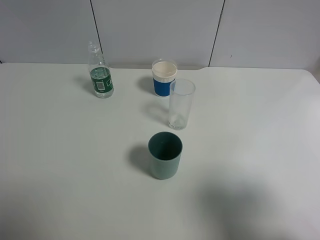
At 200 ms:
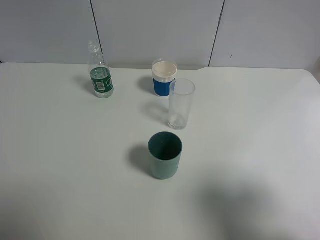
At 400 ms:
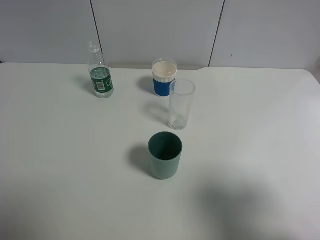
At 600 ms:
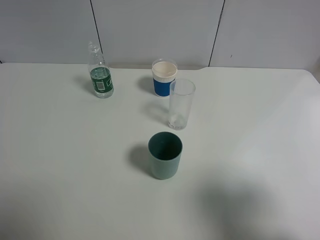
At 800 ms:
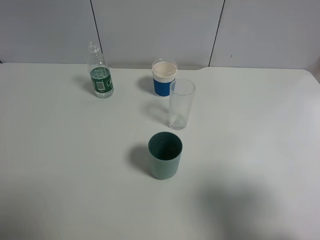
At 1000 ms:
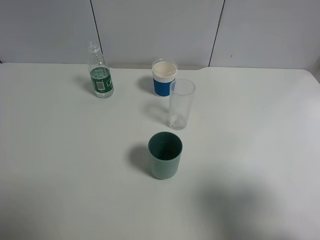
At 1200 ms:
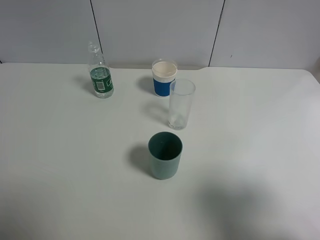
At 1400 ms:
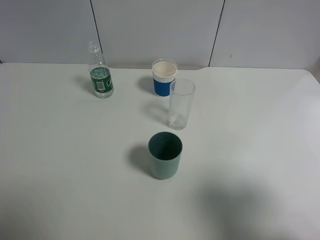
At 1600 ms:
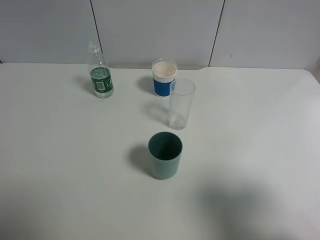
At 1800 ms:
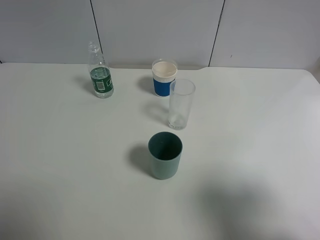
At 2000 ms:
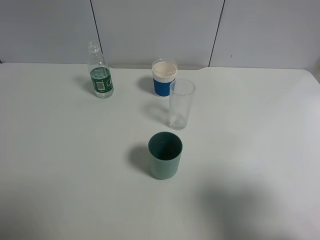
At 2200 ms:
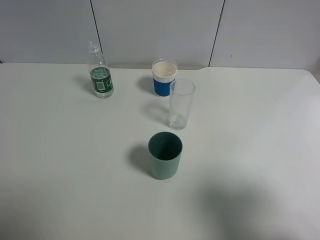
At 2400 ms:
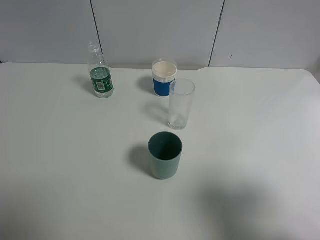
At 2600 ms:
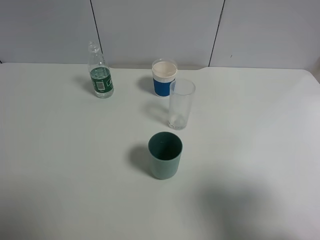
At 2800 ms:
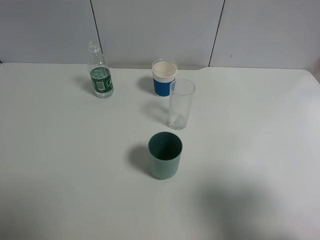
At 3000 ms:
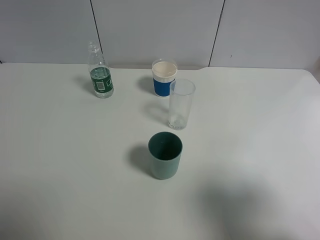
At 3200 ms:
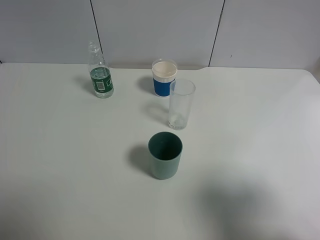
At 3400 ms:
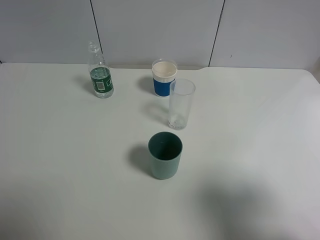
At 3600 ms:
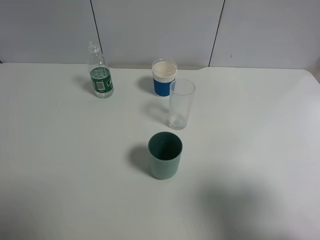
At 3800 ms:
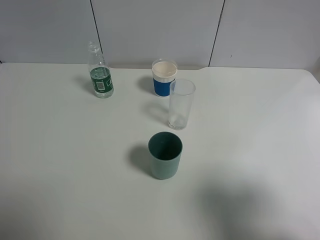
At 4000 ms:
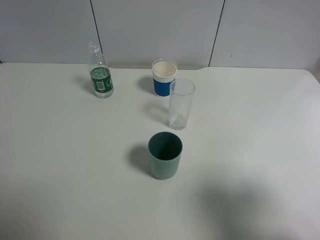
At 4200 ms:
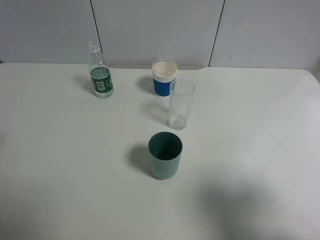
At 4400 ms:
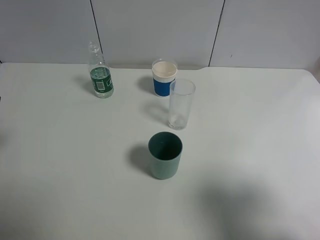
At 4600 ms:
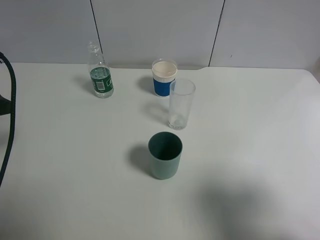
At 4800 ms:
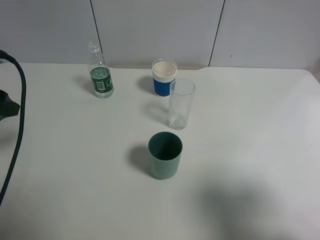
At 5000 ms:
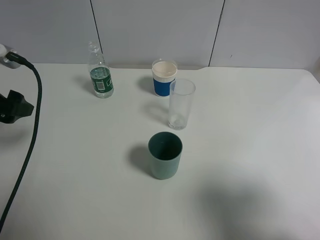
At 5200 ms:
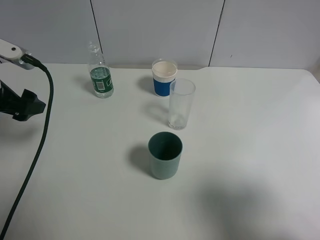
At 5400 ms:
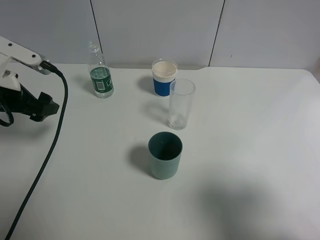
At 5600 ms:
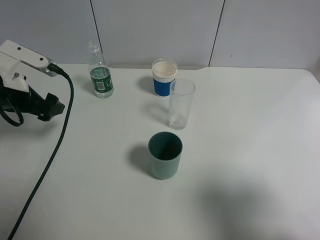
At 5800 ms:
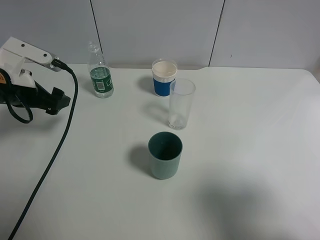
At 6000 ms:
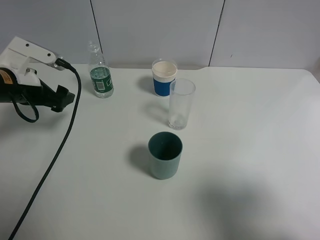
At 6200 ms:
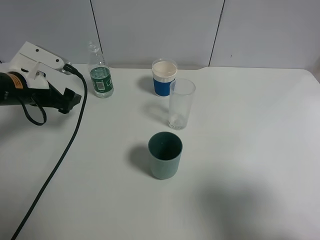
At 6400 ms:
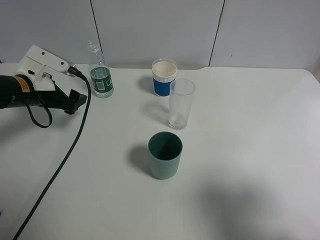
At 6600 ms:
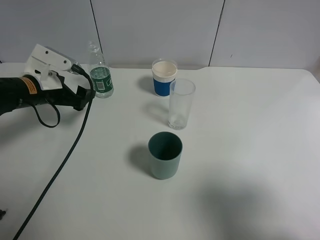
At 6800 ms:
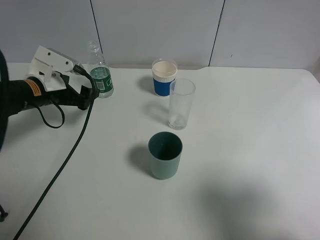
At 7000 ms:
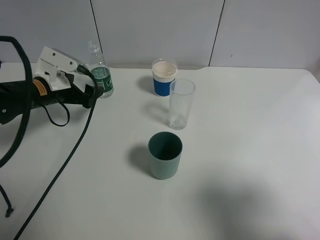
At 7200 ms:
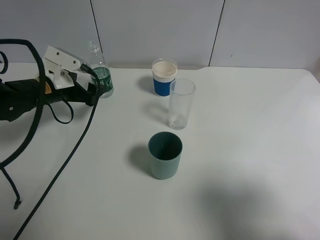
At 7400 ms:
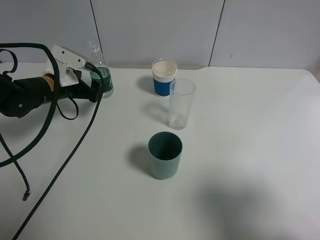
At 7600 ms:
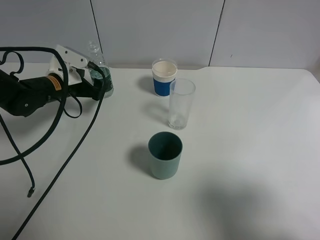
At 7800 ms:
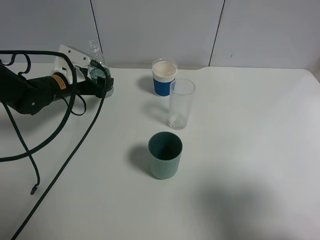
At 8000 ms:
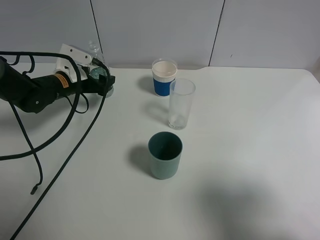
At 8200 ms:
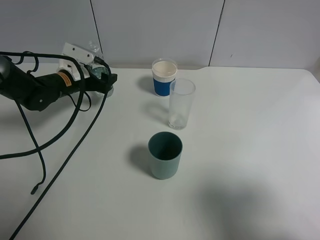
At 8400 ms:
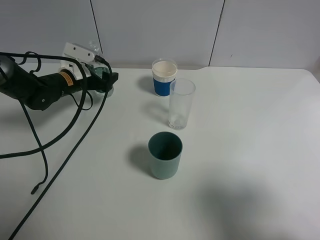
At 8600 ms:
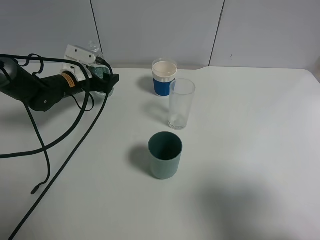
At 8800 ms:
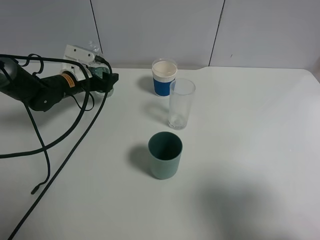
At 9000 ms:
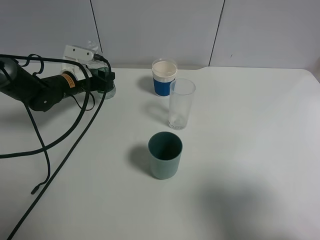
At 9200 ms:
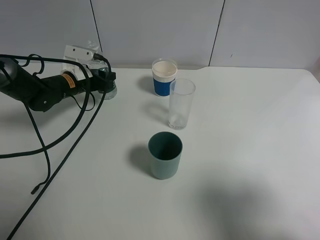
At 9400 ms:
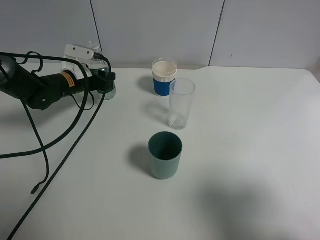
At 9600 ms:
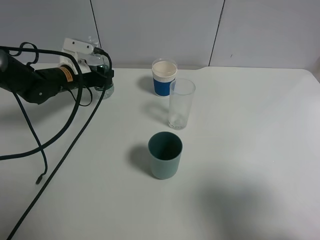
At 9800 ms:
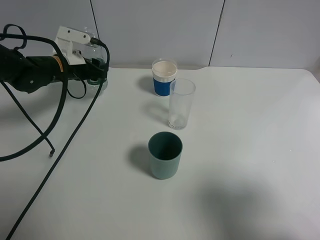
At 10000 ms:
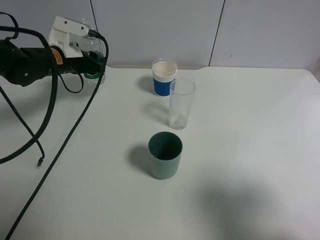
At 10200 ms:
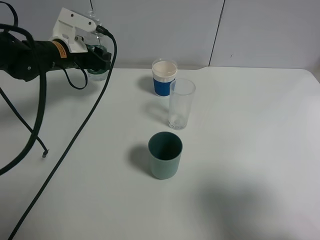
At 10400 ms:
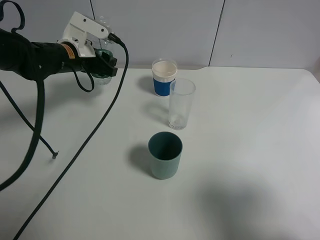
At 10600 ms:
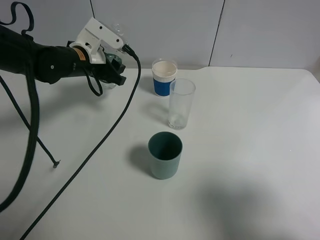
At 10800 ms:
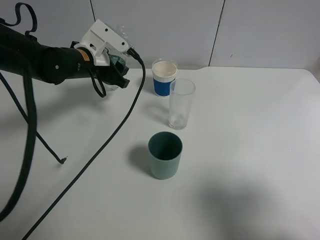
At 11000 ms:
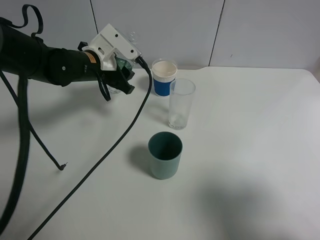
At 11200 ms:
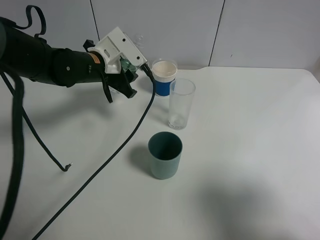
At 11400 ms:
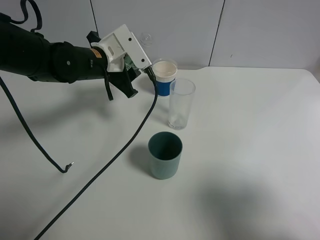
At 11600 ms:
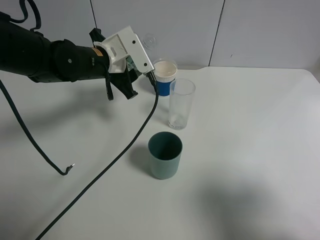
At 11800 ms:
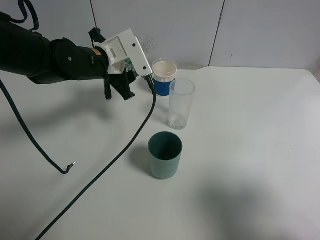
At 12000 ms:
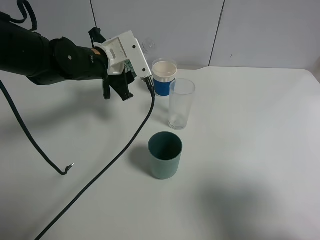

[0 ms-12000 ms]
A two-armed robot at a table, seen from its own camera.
Task of the whole recording: use a gripper to hold the bottle of the drink and pour it into a random cup.
Step, 0 ms to 9000 ms: Grasp the mineral water bottle with the left gripper.
0 ms to 3000 ms: Both grippers stay put.
4400 ms to 6000 ms: The left gripper travels forward and downward by approximately 15 cm.
6000 ms to 7600 ms: The left gripper is displaced forward and downward by about 10 cm.
7600 ms to 9000 ms: The left gripper closes up.
9000 ms to 10400 ms: The left gripper heads upward, covering approximately 10 cm.
10400 ms to 12000 ms: The left gripper is displaced to the right by roughly 5 cm.

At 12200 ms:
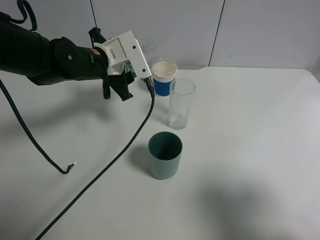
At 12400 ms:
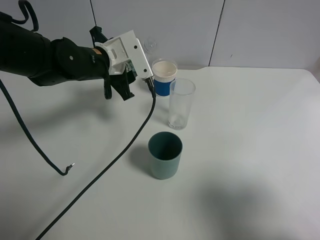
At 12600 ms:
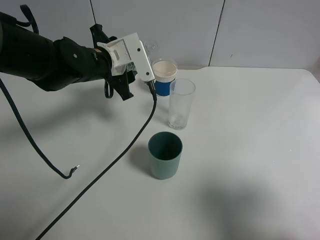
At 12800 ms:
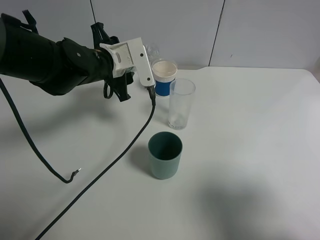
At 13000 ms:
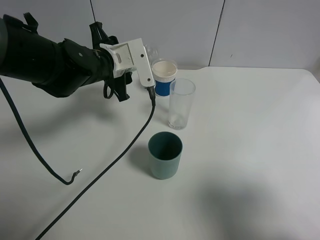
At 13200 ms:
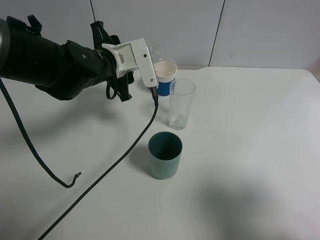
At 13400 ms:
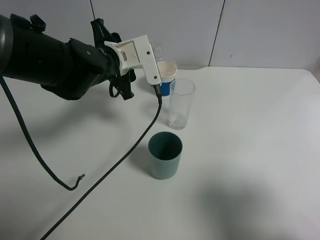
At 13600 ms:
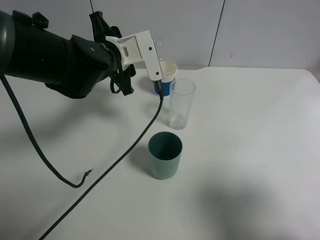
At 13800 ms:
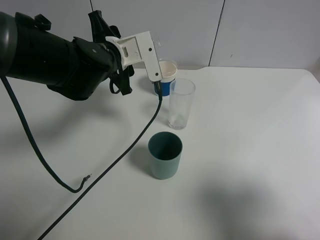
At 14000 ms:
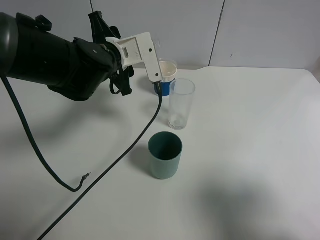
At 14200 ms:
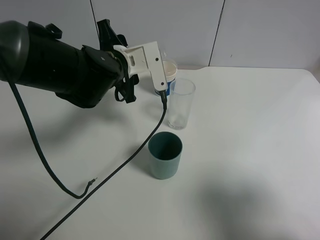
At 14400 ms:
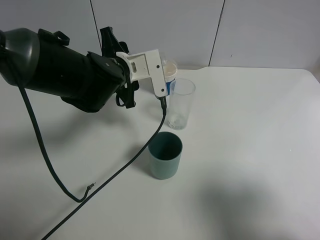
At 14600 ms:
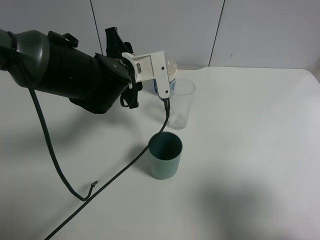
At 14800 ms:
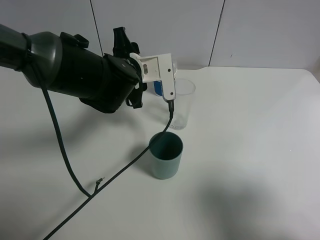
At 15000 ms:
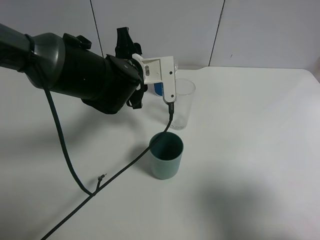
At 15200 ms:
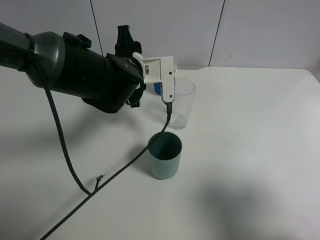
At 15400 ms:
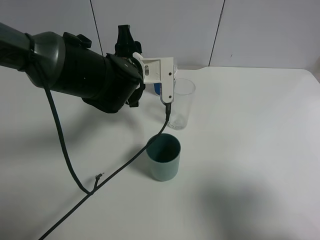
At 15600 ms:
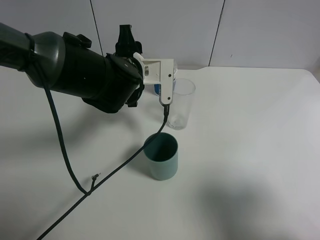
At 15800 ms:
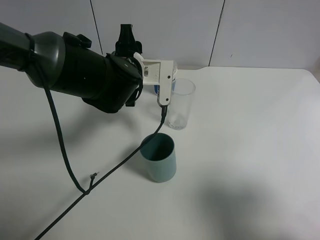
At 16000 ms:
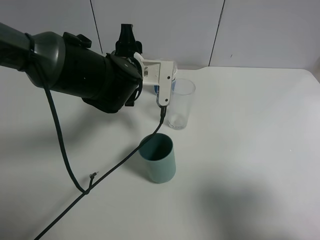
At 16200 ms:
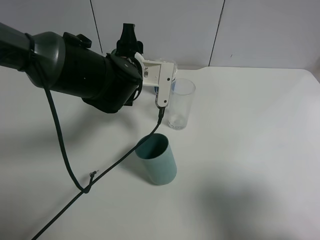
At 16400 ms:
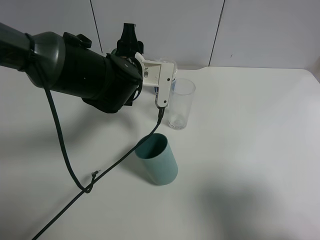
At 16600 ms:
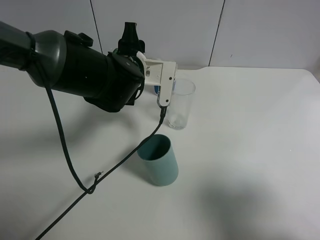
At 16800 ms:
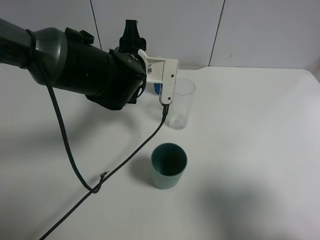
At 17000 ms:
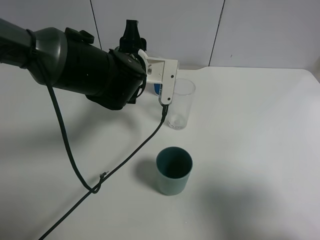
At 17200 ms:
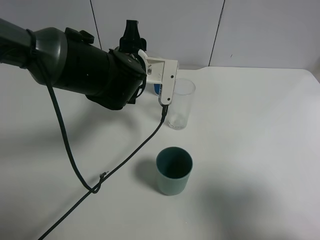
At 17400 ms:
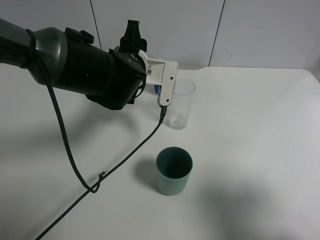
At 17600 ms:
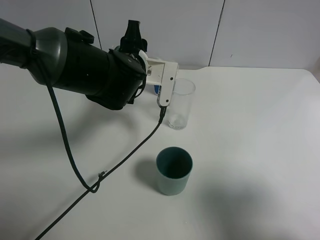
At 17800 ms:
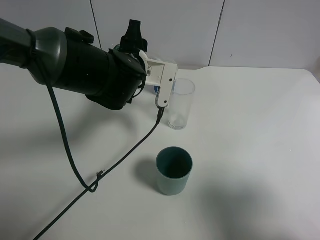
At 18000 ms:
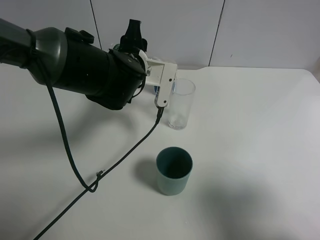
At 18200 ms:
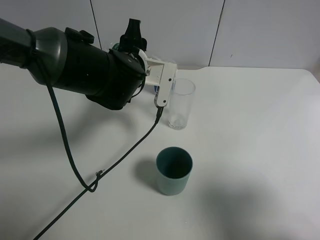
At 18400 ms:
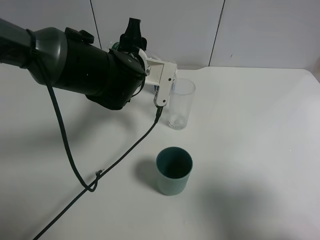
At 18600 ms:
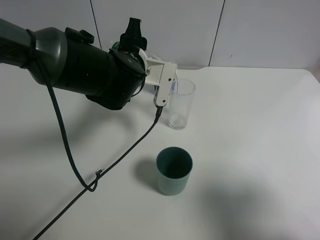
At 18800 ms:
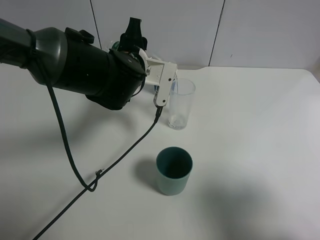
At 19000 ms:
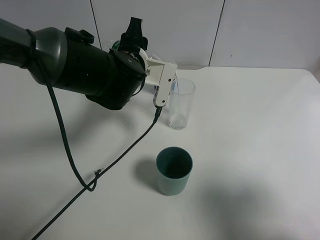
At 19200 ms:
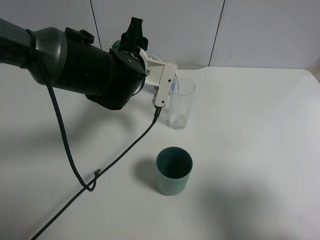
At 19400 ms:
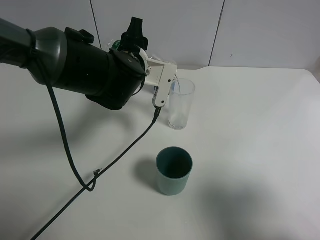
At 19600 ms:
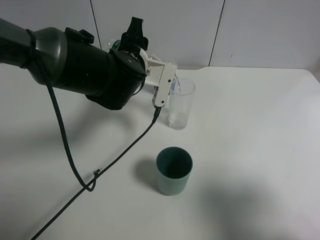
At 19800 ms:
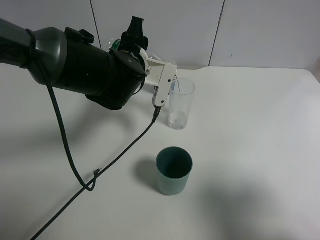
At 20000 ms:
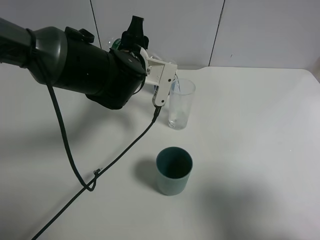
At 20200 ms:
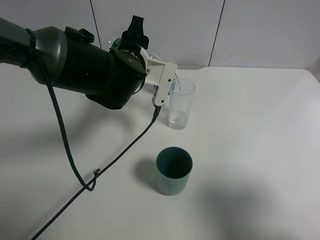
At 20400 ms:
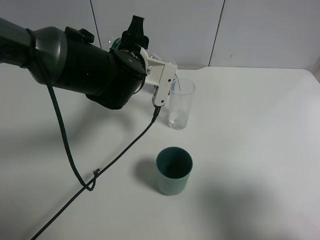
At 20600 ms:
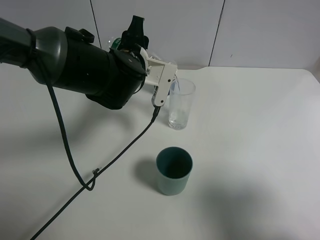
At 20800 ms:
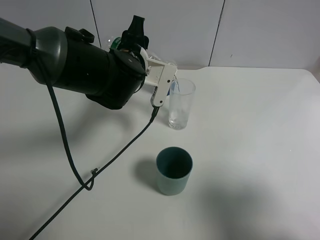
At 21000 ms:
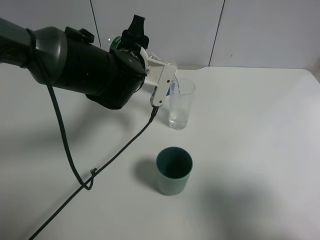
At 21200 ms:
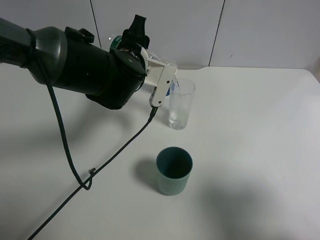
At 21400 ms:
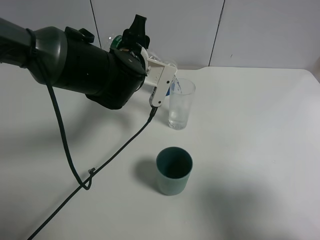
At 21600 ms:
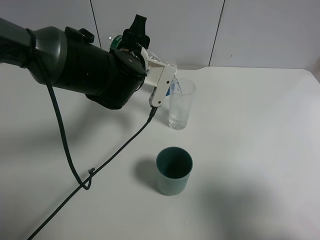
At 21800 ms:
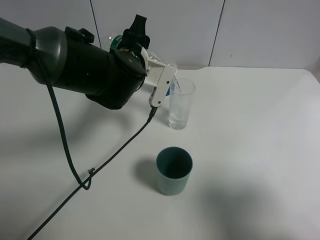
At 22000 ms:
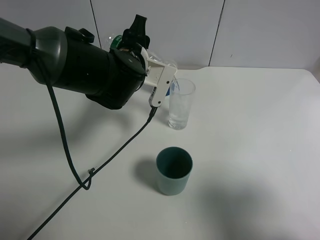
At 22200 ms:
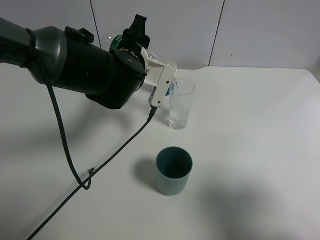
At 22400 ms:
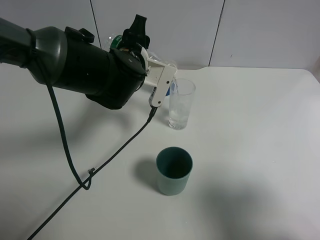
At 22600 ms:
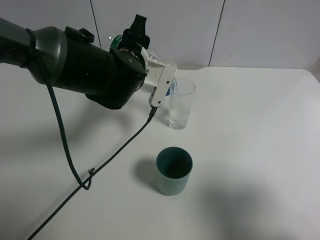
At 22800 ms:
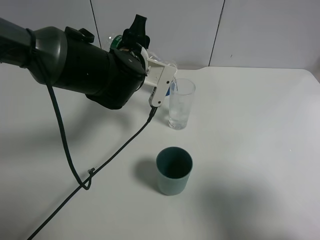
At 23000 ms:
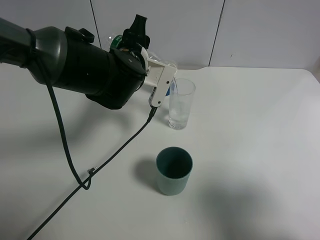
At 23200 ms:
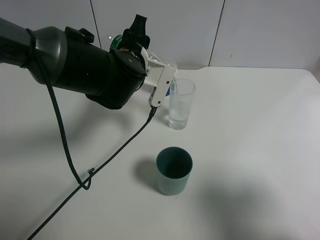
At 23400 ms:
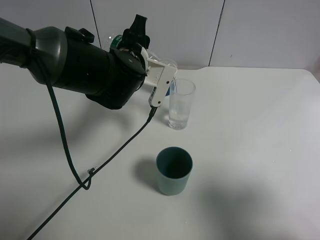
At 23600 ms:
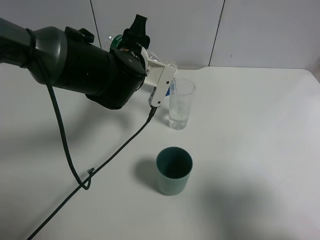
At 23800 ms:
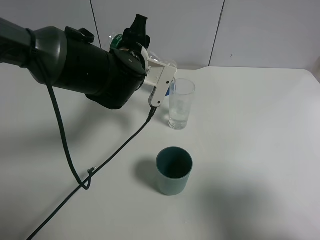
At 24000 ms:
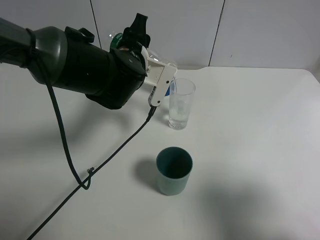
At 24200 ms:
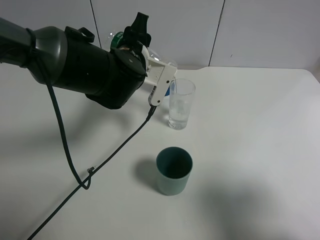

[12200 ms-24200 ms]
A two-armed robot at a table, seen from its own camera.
Task of the whole recording: use a gripper to hold the bottle of the drink and pour it into a random cup.
13800 ms to 15200 ms: There are only small adjustments of the grippers.
15200 ms to 18200 ms: The grippers move only a little.
18200 ms to 19800 ms: Both grippers stay about where they are.
19800 ms to 21200 ms: Both grippers stay about where they are.
21200 ms to 24200 ms: Both grippers stay about where they are.
